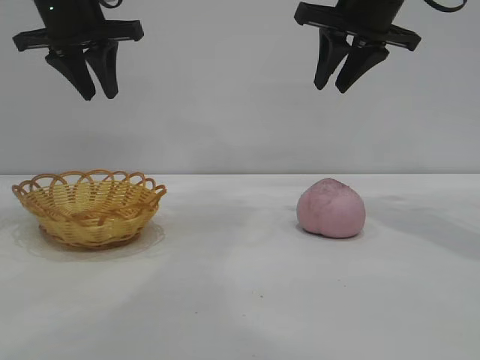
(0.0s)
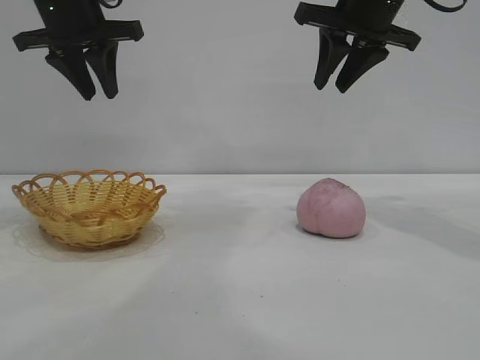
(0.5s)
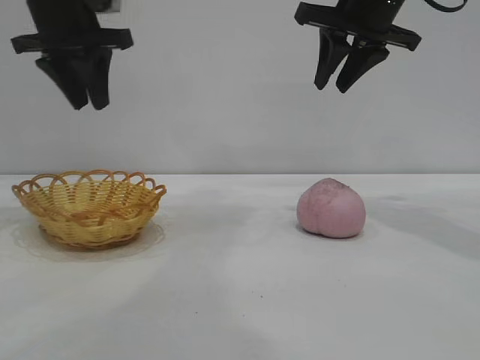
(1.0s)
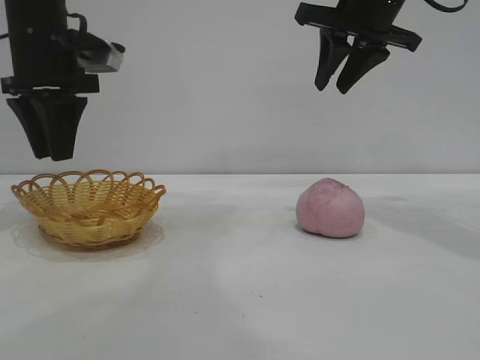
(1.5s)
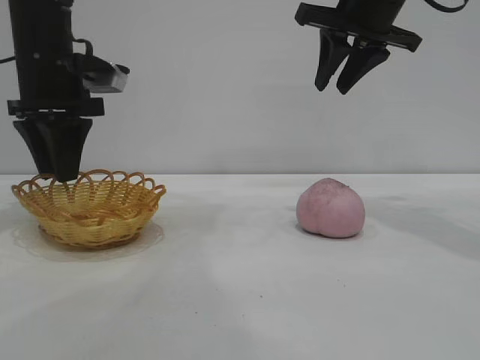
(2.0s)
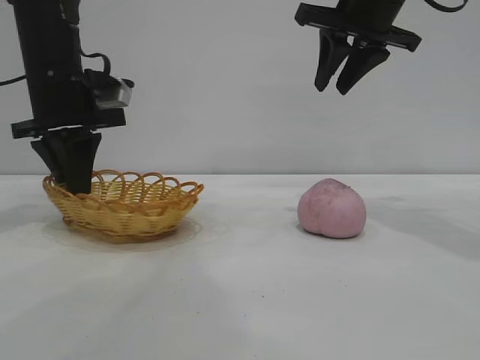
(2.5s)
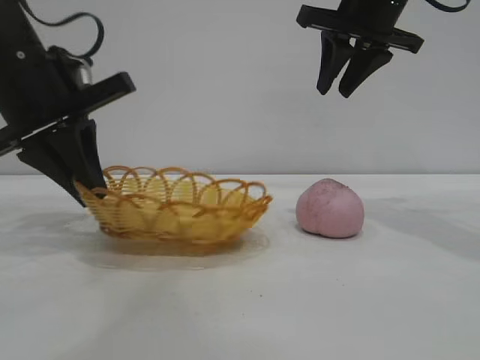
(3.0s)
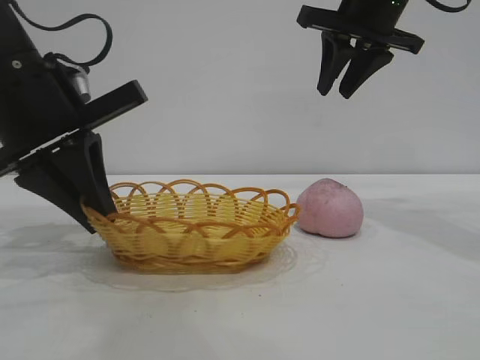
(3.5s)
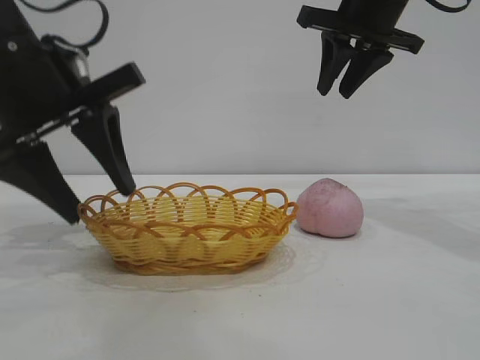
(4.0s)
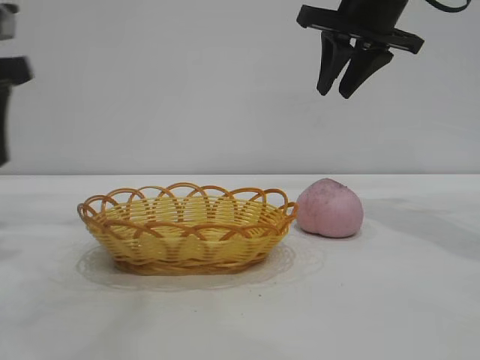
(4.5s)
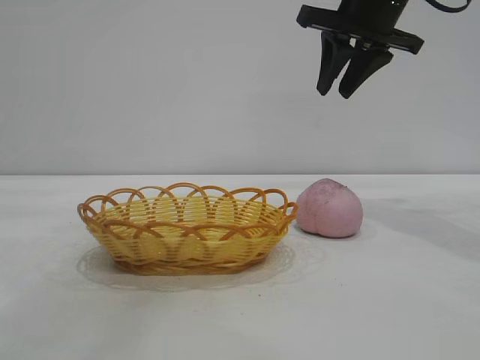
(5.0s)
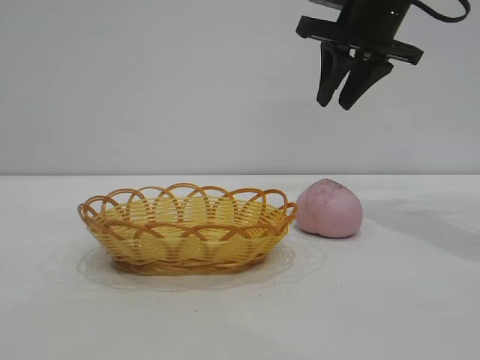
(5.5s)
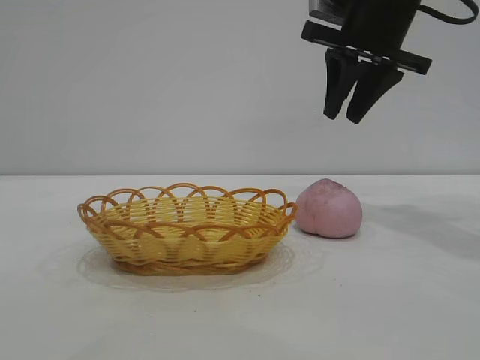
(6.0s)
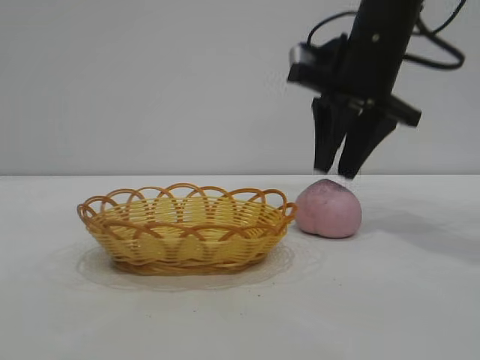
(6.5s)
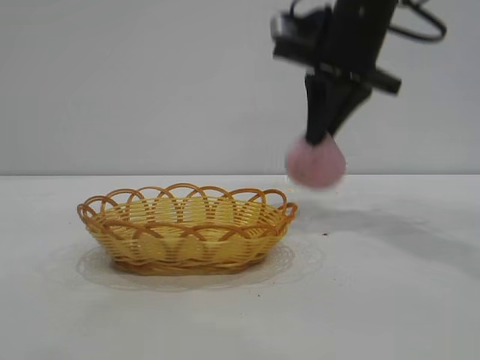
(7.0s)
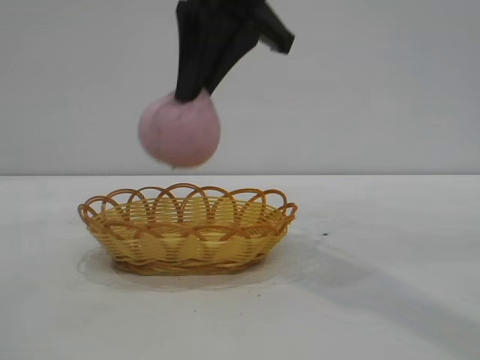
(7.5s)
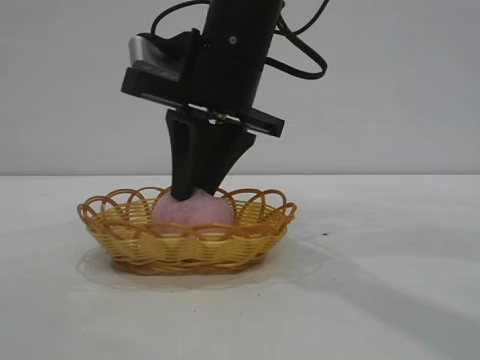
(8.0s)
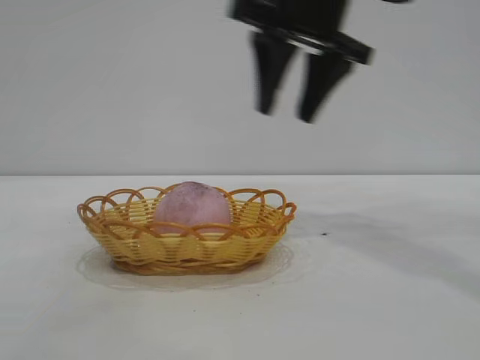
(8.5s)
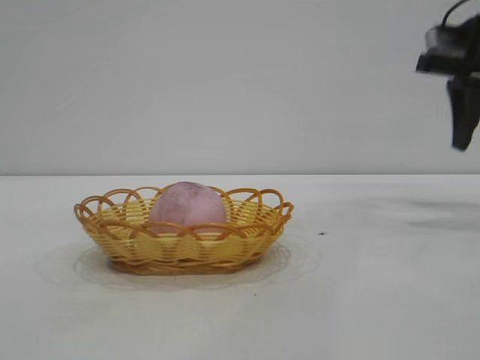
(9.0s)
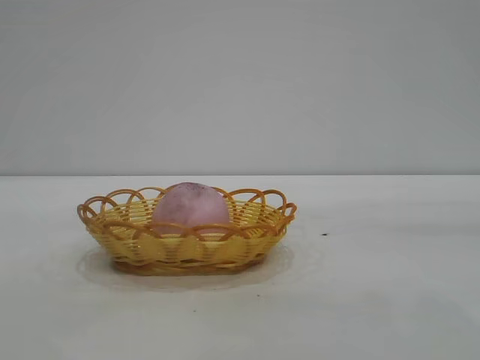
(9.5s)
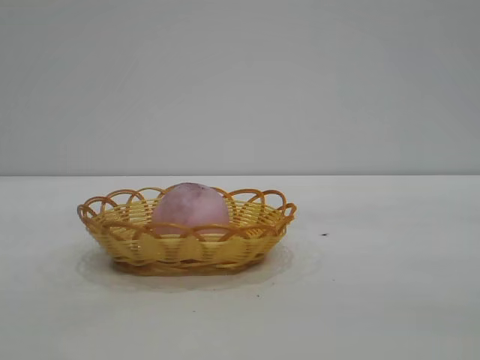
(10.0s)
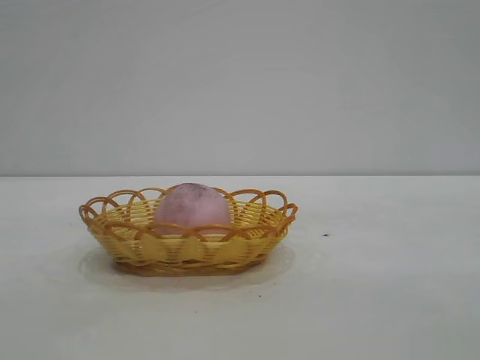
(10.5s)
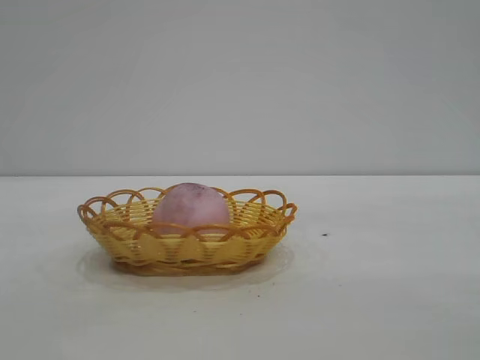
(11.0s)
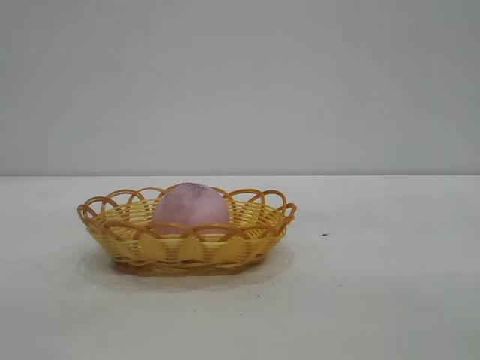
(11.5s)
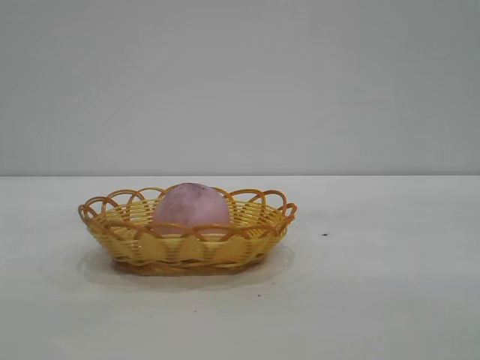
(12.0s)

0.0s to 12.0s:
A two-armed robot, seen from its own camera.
Task of the whole recording: pick up the peach and put it into the basket.
Step, 0.0s to 4.0s: Move the basket to the center of view.
Step, 4.5s to 6.5s: Pick up the peach.
Step, 7.0s to 8.0s: place the peach into the basket.

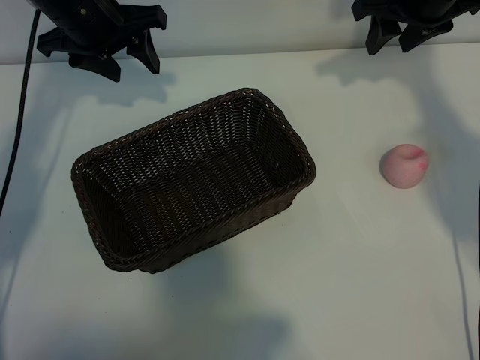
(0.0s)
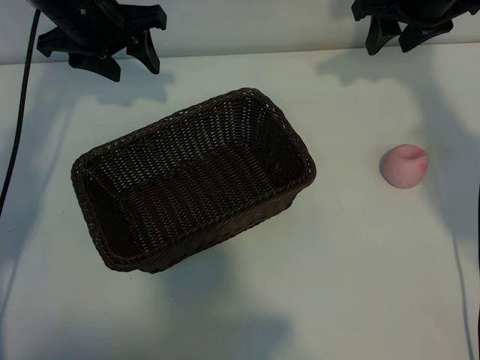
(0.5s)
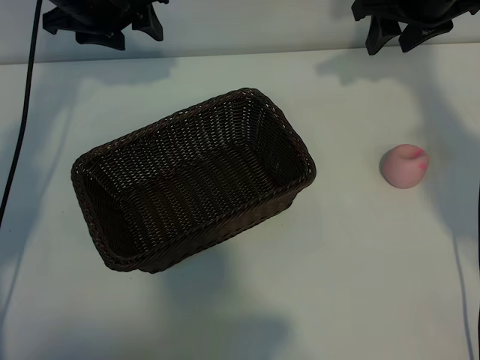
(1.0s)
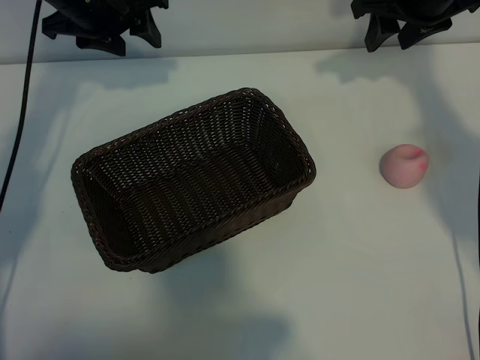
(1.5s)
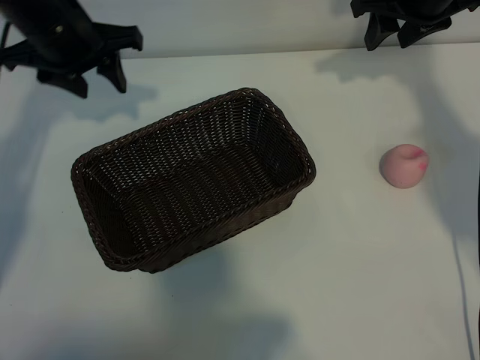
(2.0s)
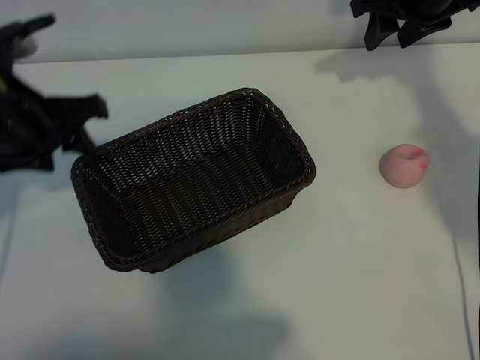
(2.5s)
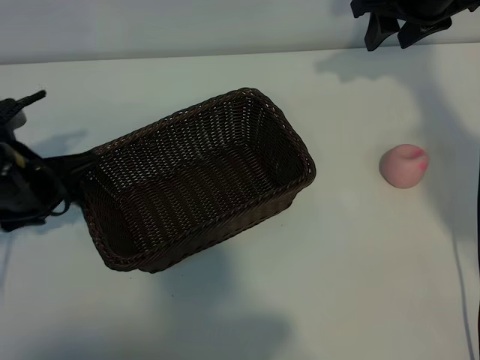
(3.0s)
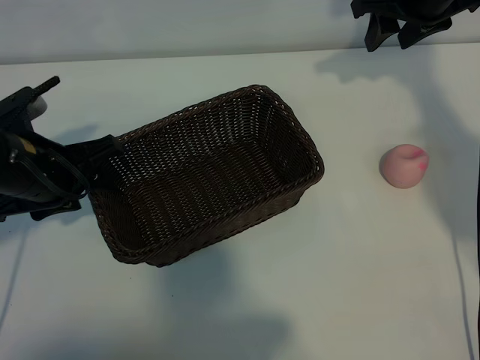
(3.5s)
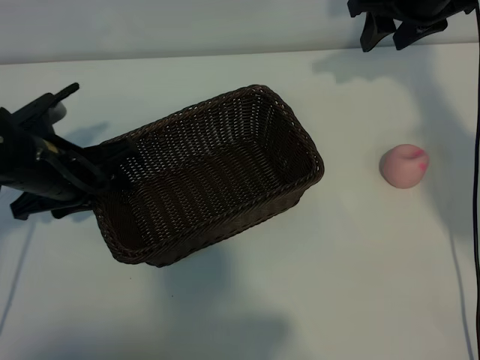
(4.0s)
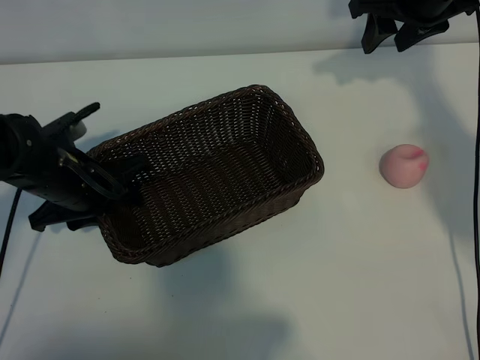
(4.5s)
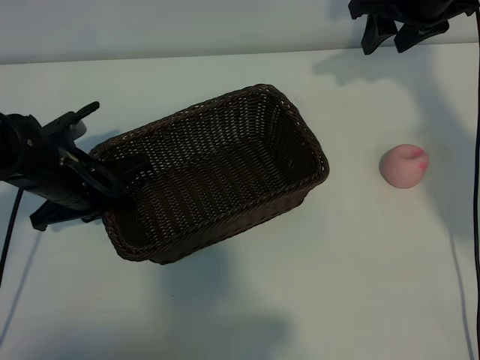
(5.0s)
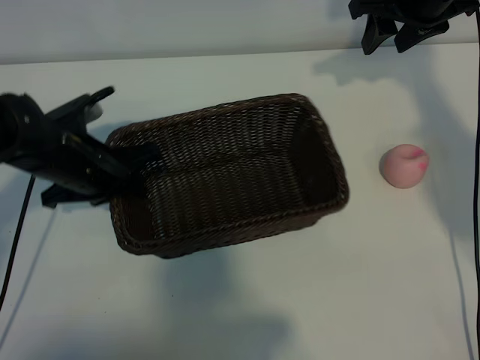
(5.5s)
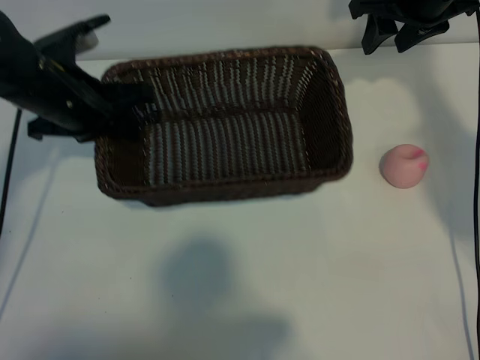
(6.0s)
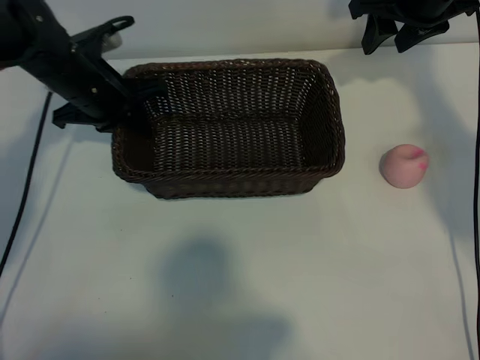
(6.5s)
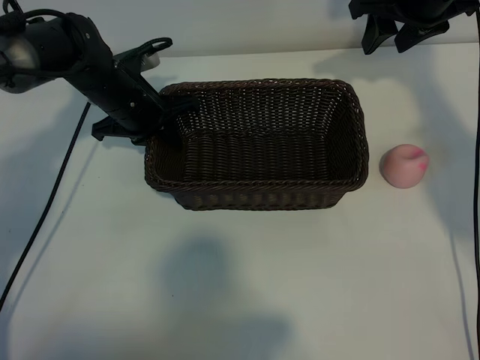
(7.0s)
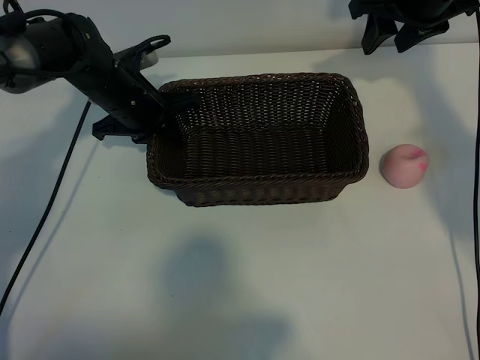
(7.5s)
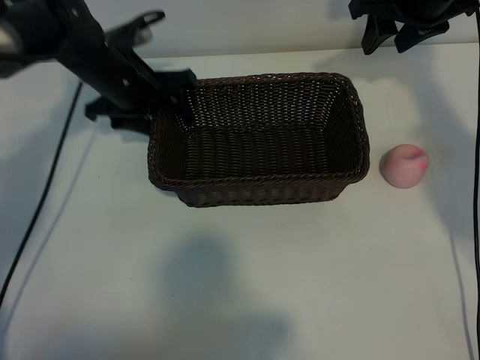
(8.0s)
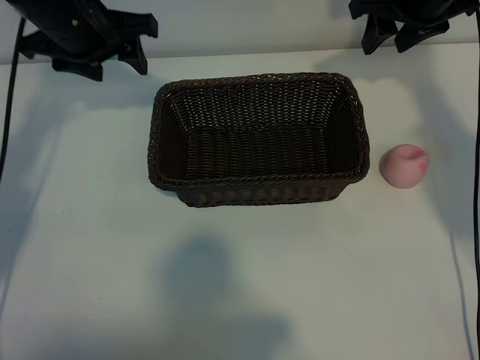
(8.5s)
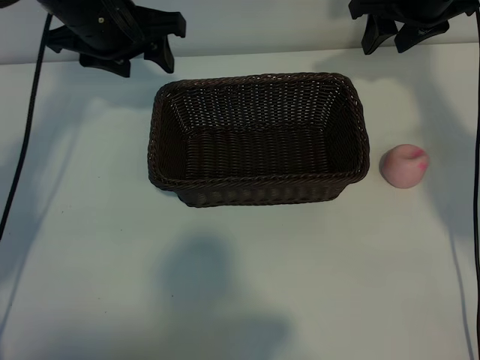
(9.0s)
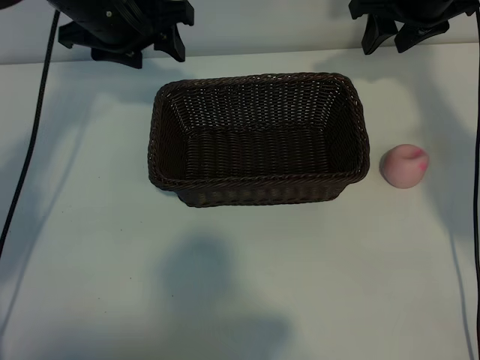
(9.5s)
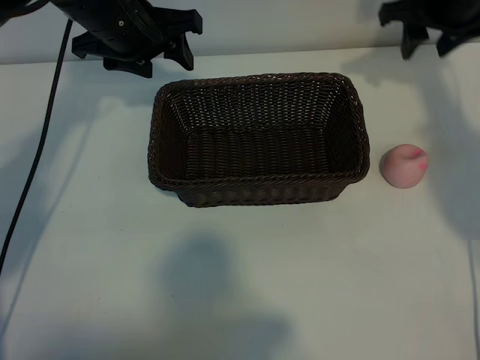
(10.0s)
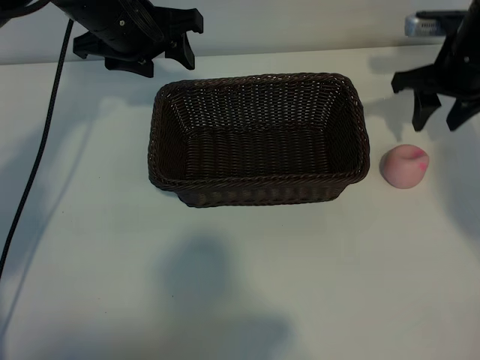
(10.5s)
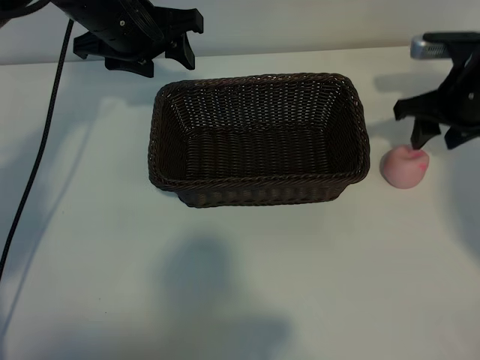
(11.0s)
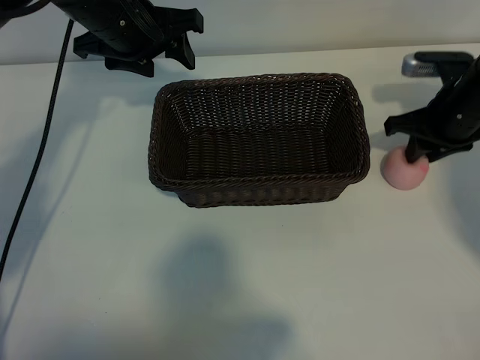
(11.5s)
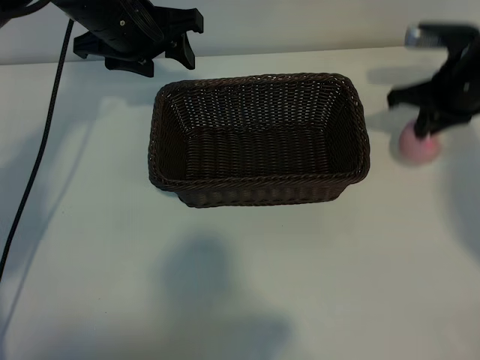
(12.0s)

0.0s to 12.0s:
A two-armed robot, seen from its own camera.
Task of the whole recording: pick up the peach and put it into the basket.
Step, 1.5s to 5.0s: Grasp the basket with left gripper.
Step, 5.5s to 7.5s: Place the basket in the center of view with left gripper.
Step, 8.5s to 11.5s: Grasp the peach with right gripper.

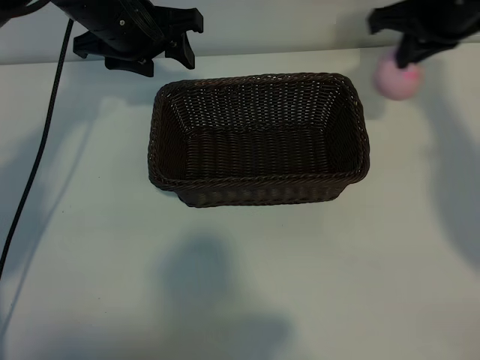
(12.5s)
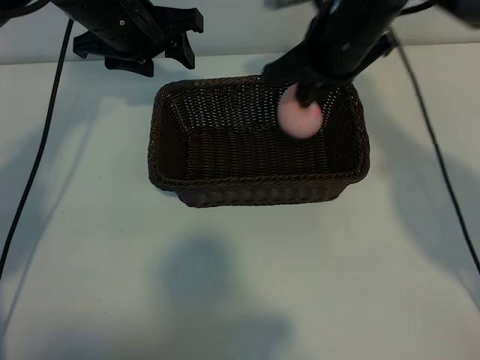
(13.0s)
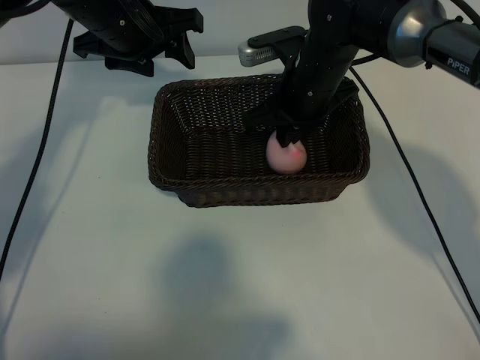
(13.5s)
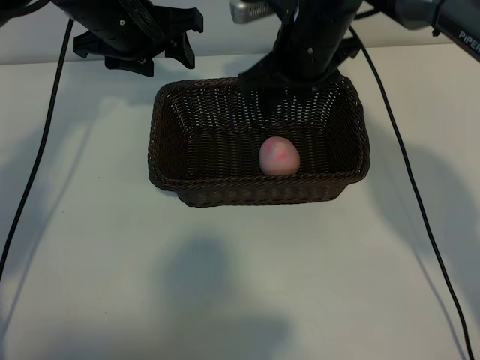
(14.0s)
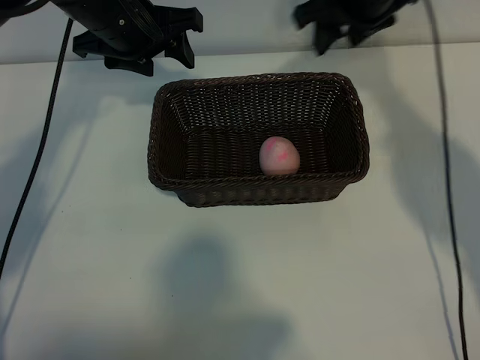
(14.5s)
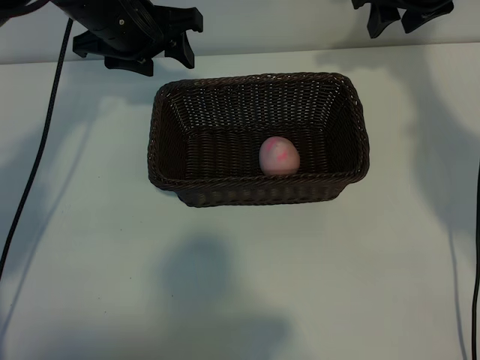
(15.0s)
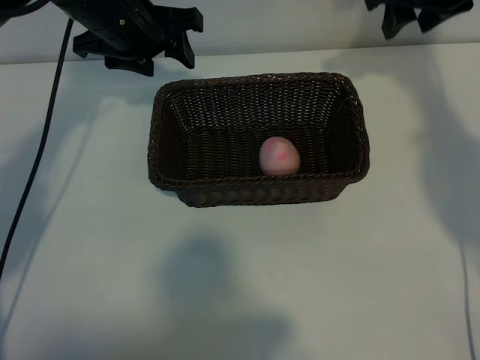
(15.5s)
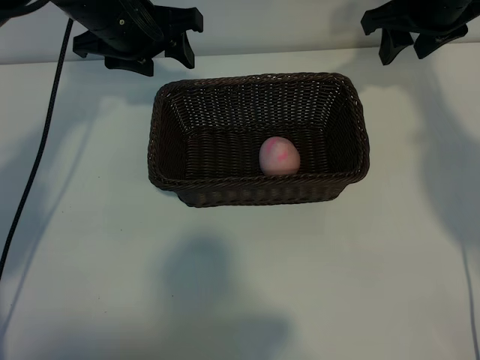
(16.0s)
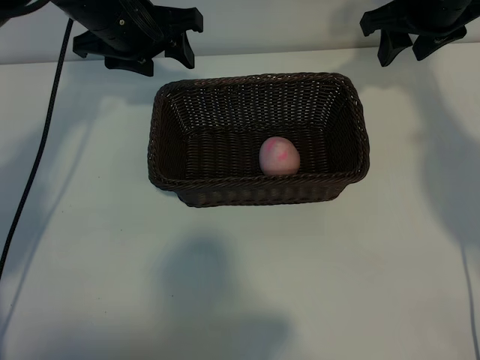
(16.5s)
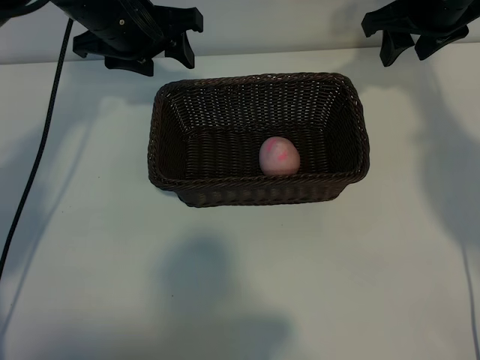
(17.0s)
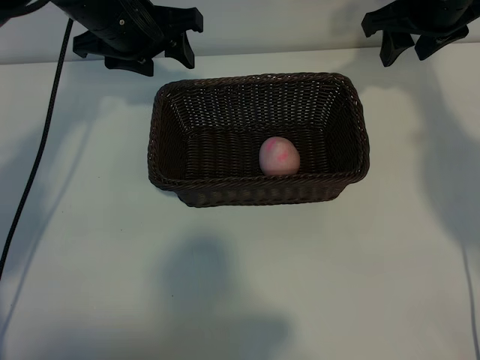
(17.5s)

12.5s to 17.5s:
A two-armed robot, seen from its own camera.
Task of the whole recording: pick up the peach and put it into the basket.
Step, 12.5s to 13.5s: Place the peach in the basket with right gripper.
